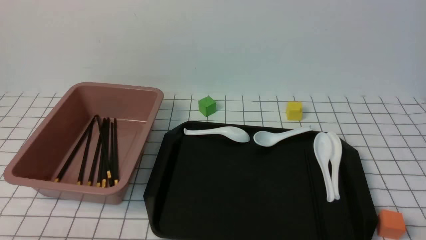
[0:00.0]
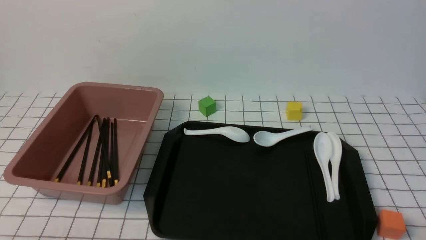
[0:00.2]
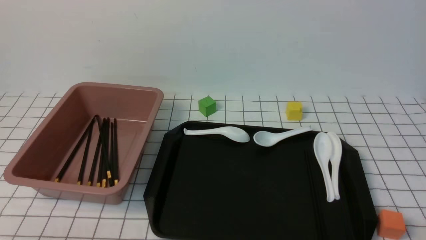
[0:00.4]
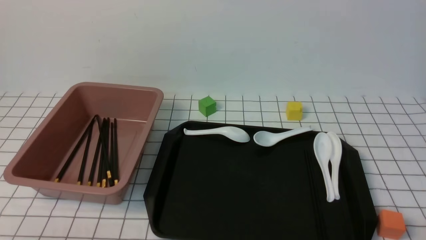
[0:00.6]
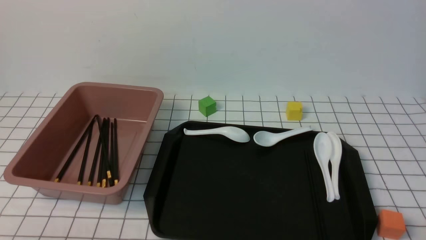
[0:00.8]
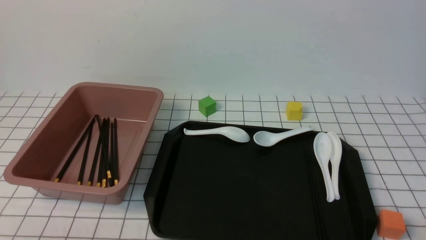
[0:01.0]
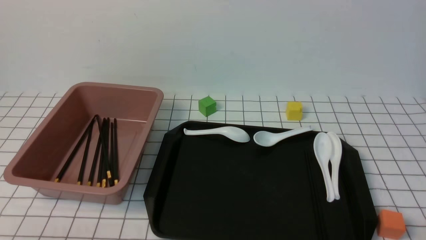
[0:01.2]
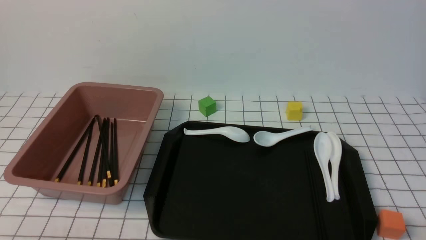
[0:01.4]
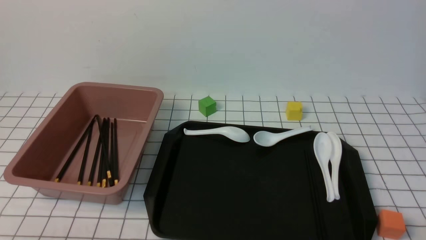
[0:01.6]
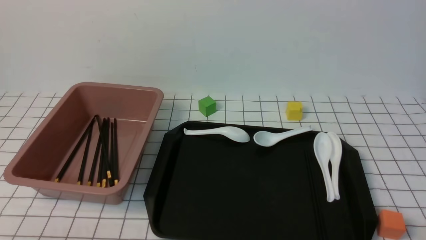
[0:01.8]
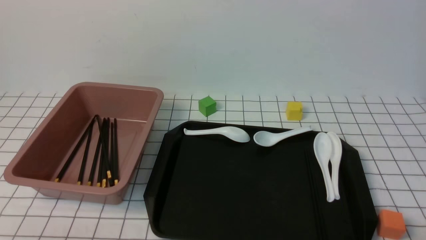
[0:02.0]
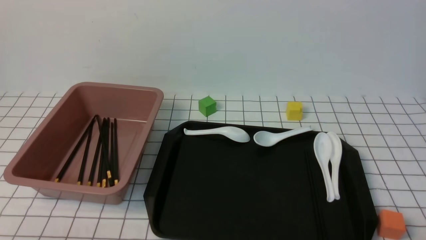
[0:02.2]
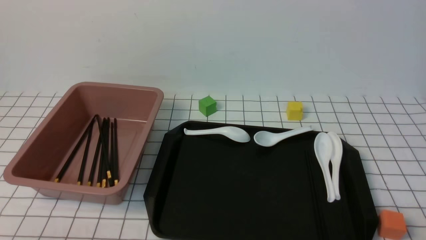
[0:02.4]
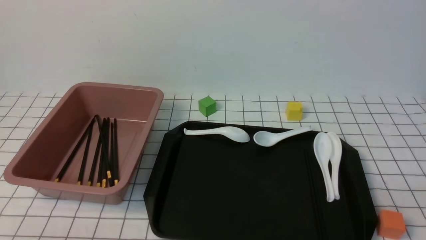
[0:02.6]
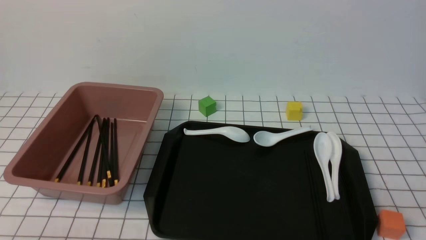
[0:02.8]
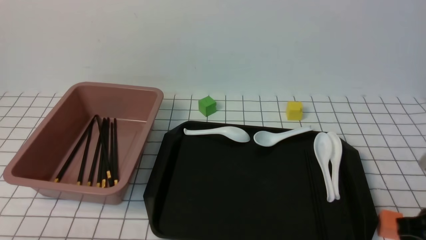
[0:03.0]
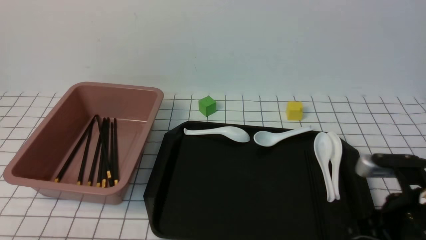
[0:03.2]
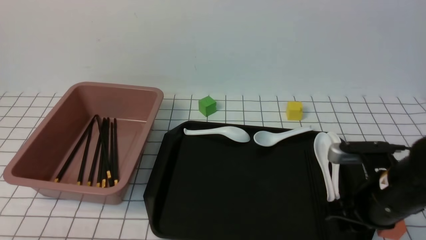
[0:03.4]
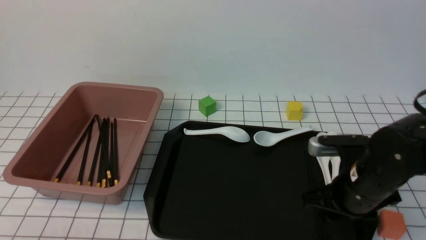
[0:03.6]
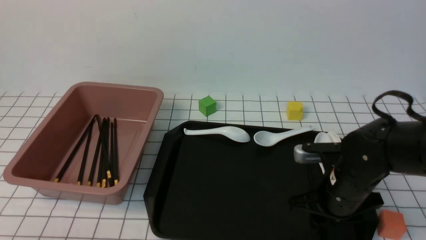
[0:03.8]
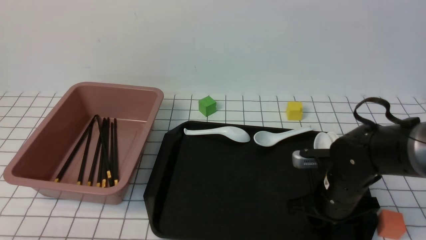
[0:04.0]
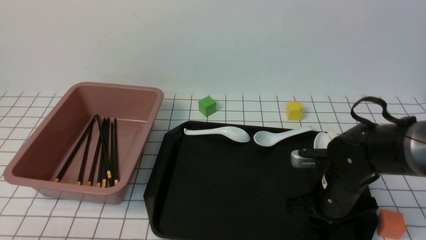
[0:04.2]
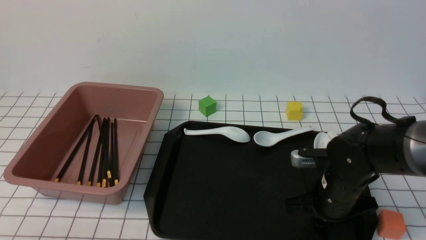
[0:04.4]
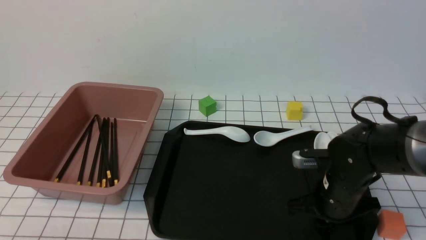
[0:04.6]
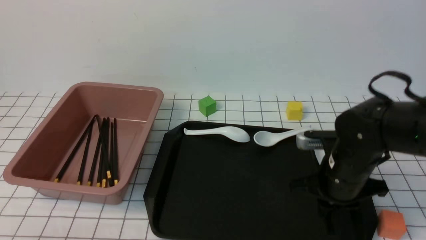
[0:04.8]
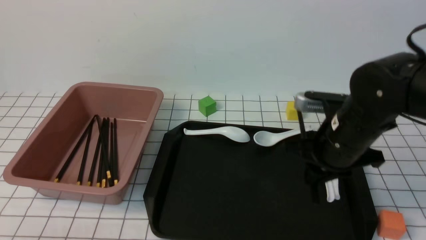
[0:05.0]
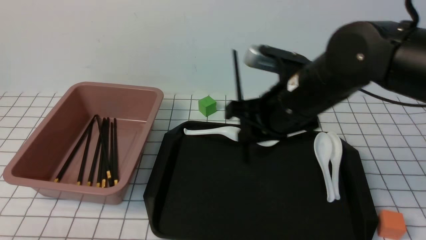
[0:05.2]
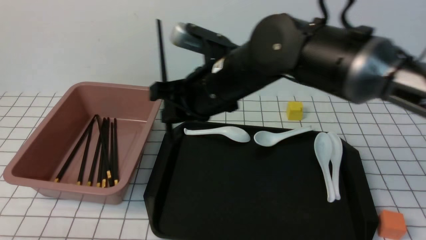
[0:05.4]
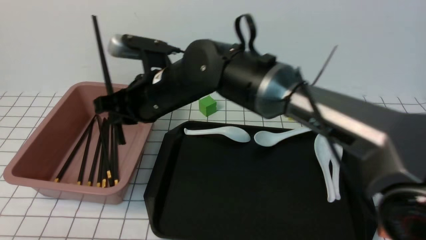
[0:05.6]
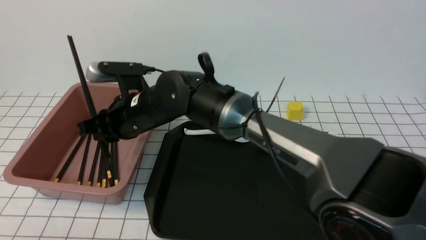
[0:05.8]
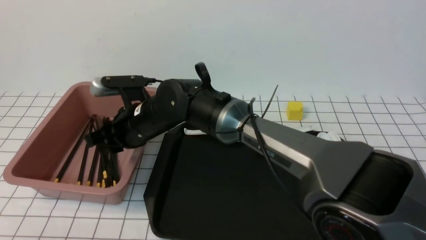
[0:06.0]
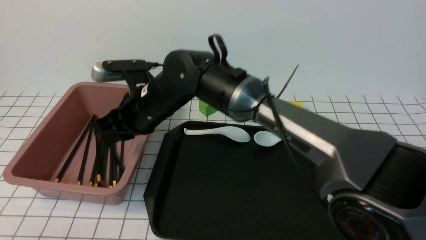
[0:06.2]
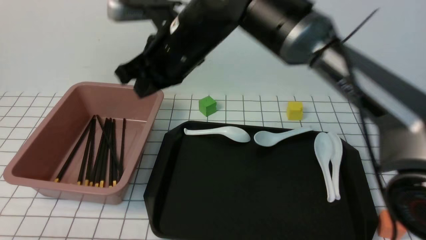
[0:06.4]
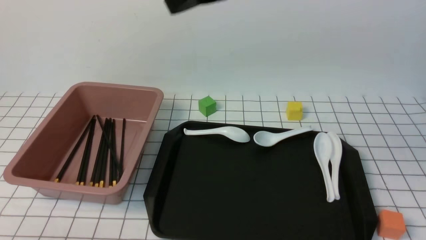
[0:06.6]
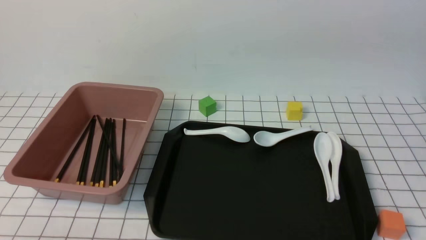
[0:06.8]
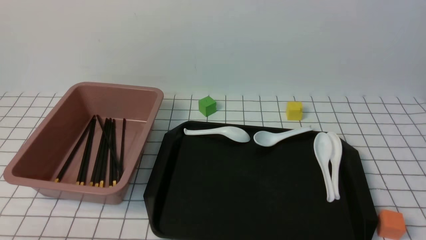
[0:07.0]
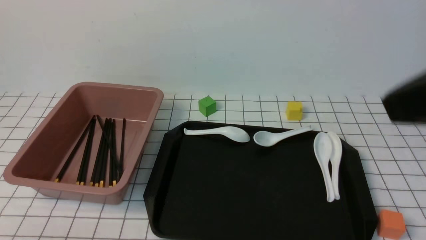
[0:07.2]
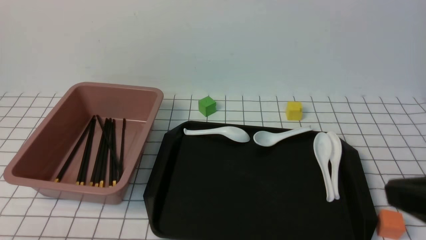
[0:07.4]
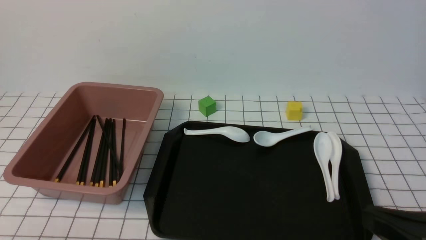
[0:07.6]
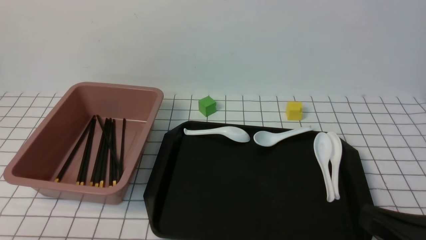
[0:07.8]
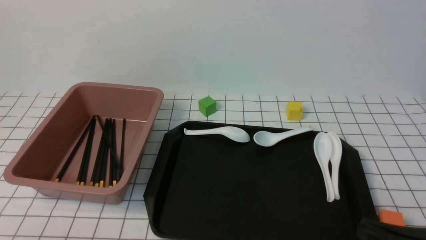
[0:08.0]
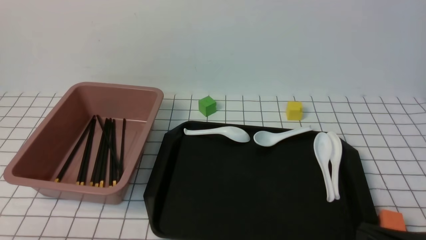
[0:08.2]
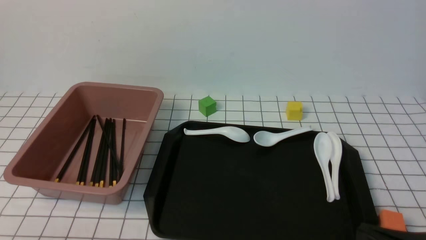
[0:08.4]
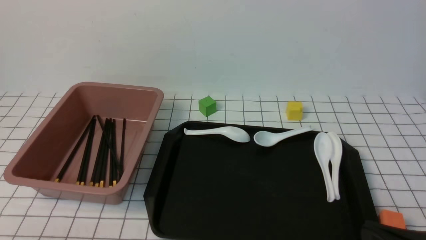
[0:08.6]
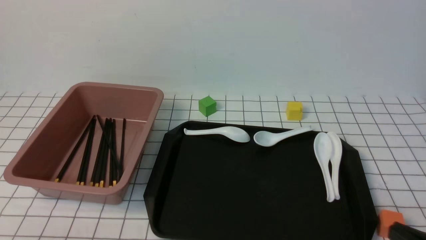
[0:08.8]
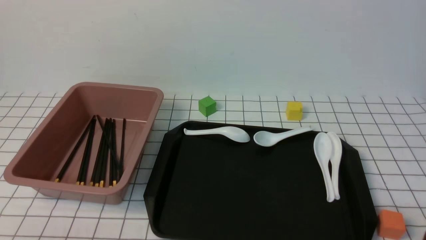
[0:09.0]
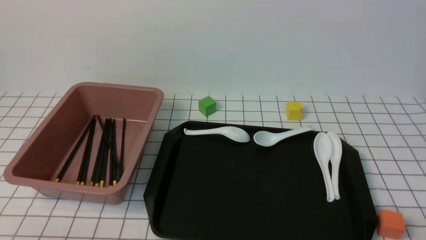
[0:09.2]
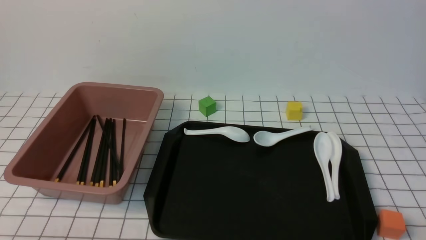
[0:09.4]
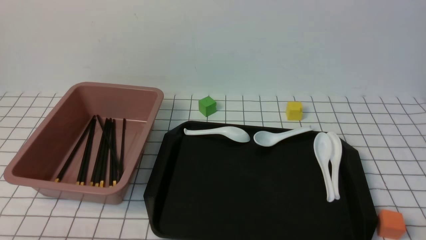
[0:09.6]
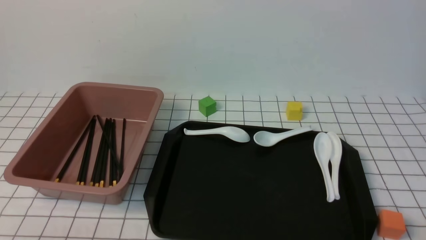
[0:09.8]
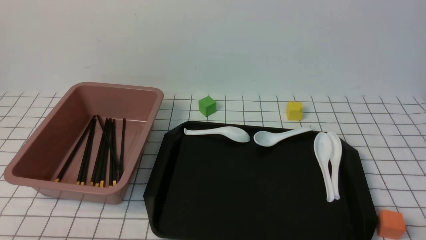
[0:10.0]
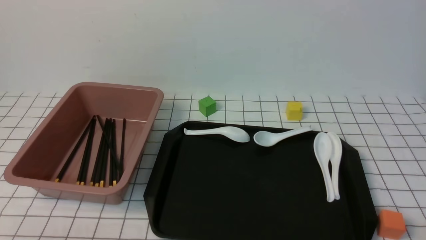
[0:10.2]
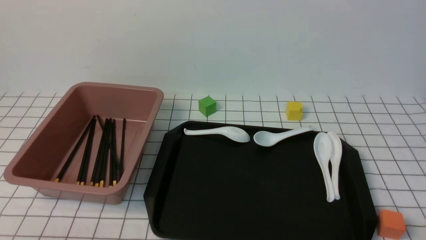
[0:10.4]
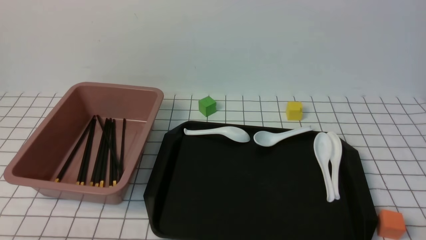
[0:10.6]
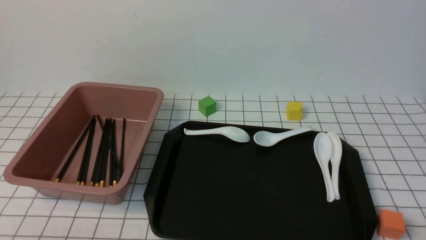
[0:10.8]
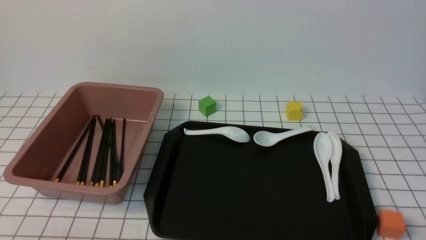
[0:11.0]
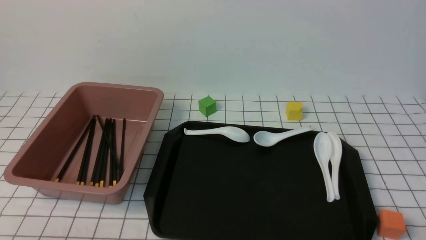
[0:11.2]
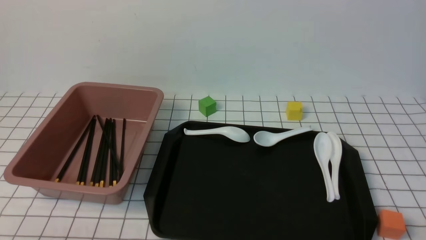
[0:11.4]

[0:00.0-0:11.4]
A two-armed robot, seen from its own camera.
Step, 0:00.0 to 0:05.0: use the right arm to grab a pair of chopsticks.
Step, 0:05.2 to 0:06.2: use the right arm to put the chopsticks into the lunch box.
0:00.0 to 0:01.4: The two grippers keep their place.
0:02.8 to 0:04.2: The right gripper moves forward, downward and to the left, about 25 cm, and opens.
0:04.2 to 0:05.6: The right gripper moves to the left and upward, about 30 cm.
0:05.6 to 0:07.2: The right gripper goes about 40 cm to the right, backward and upward, and closes.
0:07.2 to 0:08.6: The right gripper moves downward, some 25 cm.
0:10.0 to 0:11.4: Both grippers stay about where they are.

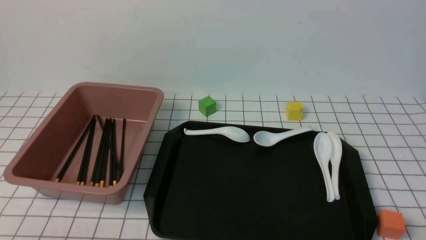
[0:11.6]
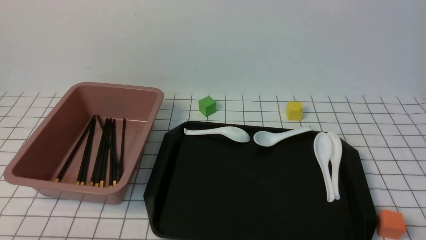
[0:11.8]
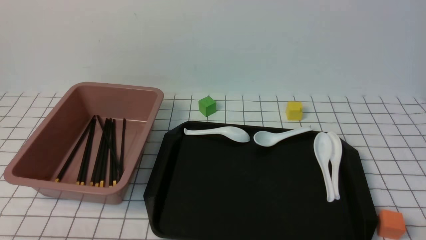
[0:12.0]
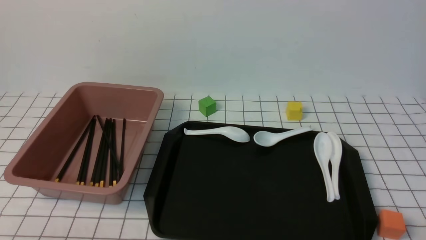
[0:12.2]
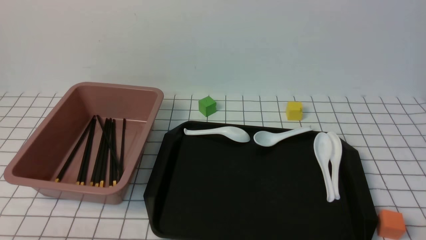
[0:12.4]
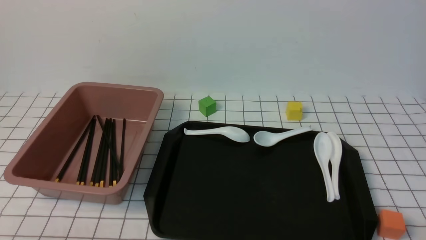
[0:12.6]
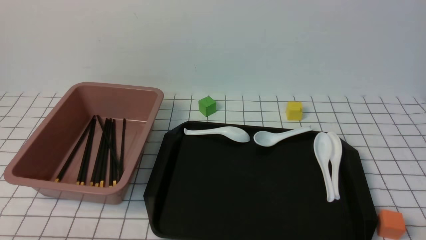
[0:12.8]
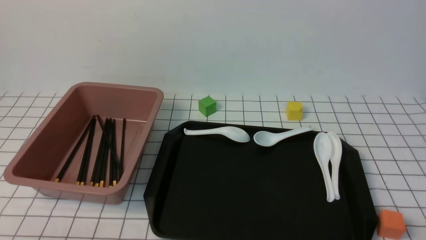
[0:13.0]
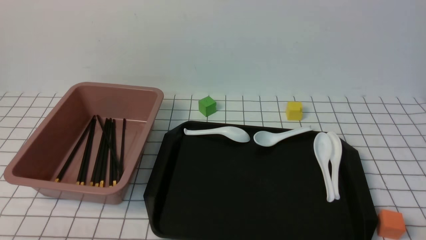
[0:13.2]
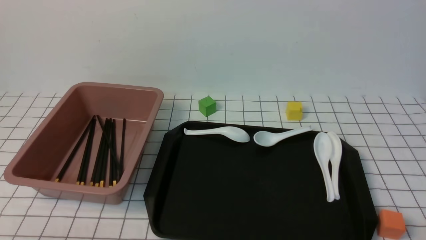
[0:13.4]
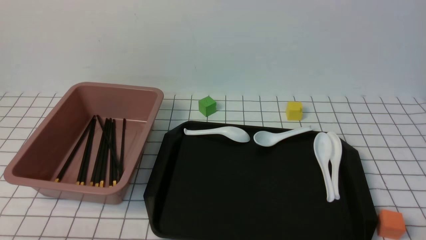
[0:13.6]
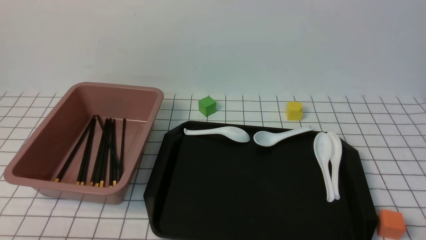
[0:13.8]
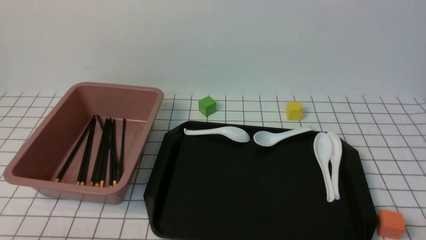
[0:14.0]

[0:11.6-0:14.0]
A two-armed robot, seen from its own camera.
0:11.6 to 0:14.0: Both grippers stay about where they are.
